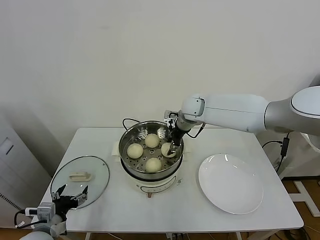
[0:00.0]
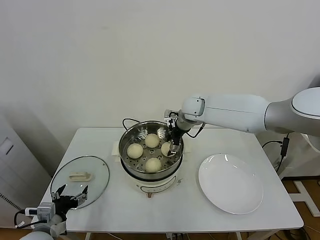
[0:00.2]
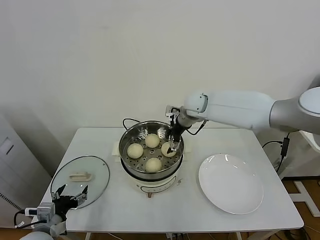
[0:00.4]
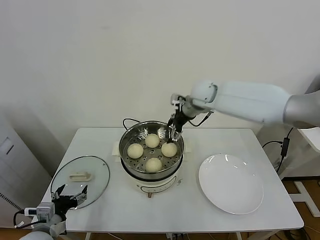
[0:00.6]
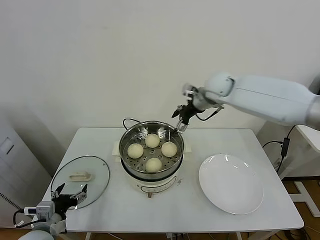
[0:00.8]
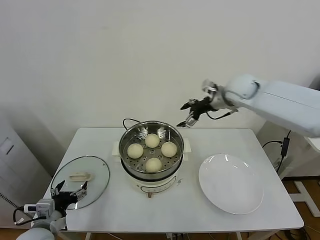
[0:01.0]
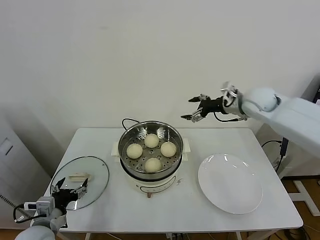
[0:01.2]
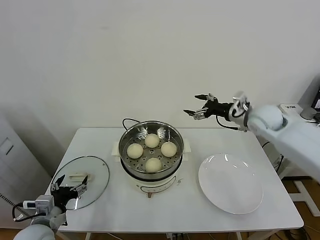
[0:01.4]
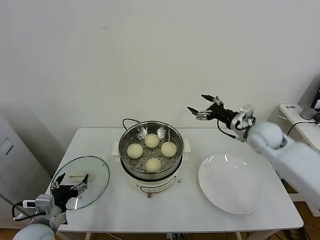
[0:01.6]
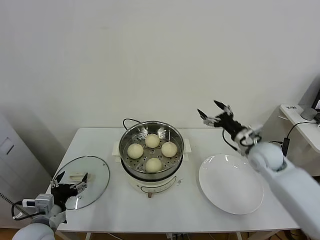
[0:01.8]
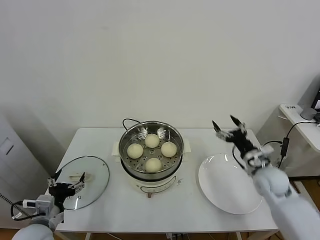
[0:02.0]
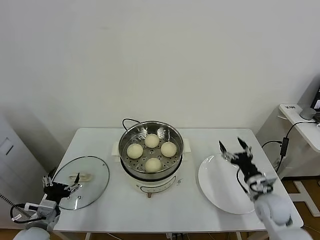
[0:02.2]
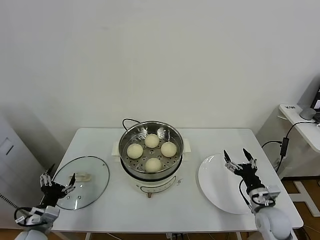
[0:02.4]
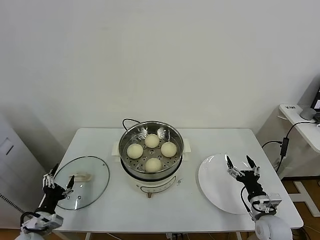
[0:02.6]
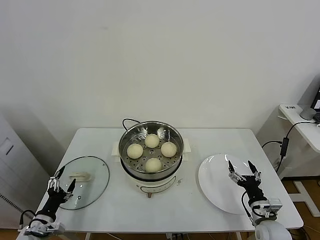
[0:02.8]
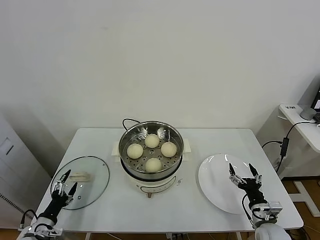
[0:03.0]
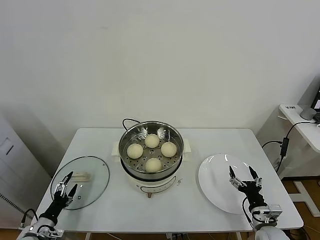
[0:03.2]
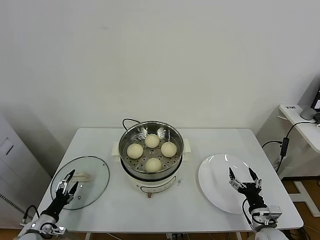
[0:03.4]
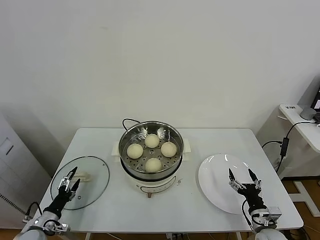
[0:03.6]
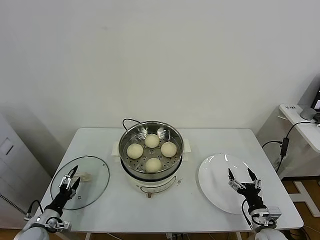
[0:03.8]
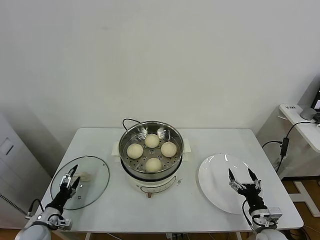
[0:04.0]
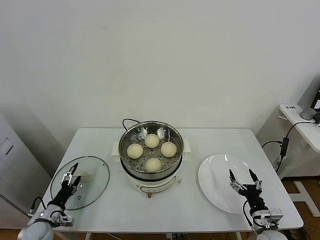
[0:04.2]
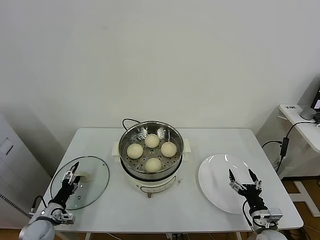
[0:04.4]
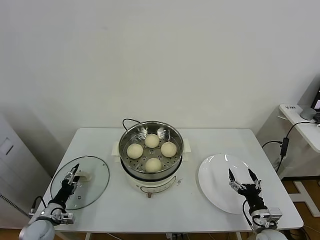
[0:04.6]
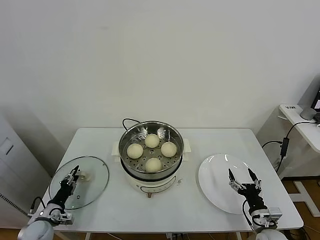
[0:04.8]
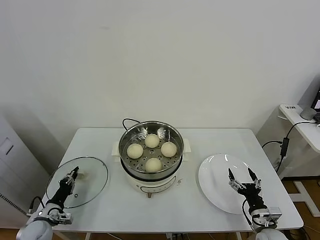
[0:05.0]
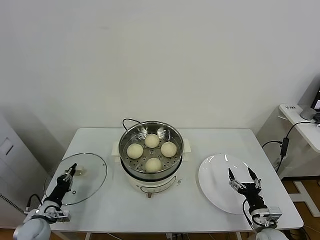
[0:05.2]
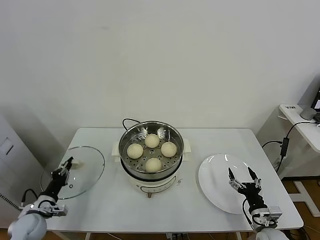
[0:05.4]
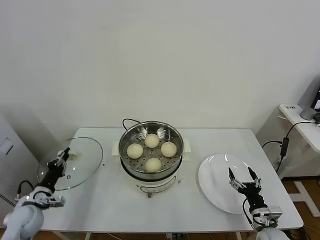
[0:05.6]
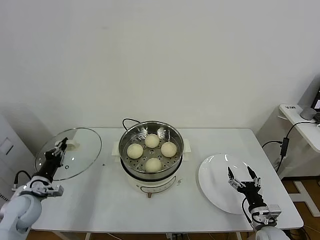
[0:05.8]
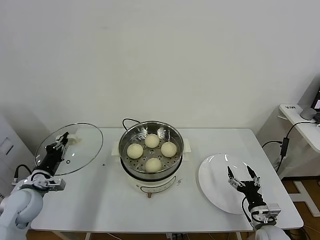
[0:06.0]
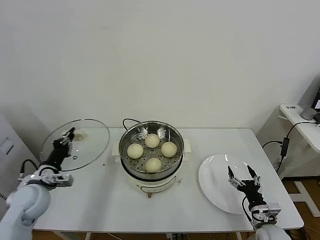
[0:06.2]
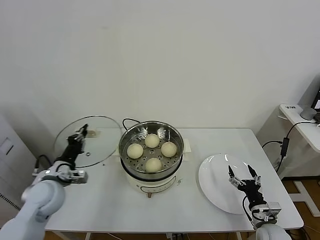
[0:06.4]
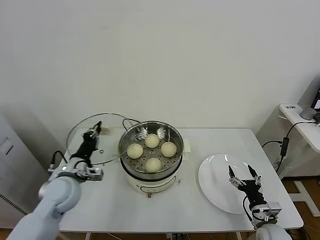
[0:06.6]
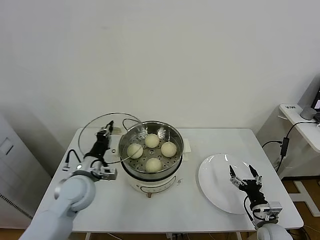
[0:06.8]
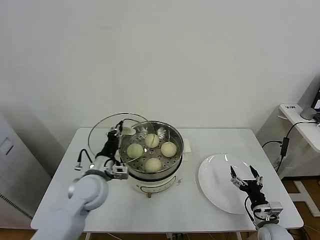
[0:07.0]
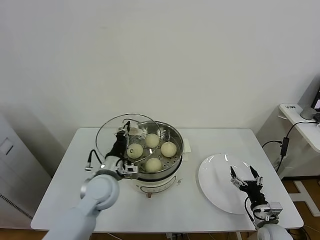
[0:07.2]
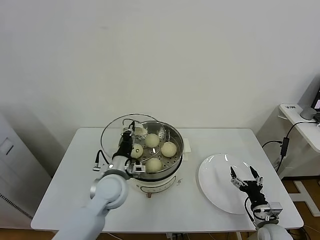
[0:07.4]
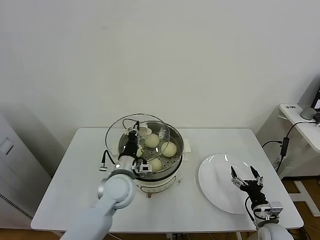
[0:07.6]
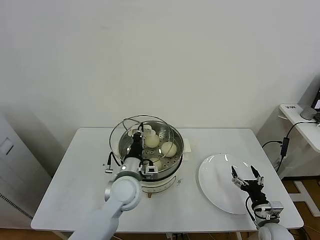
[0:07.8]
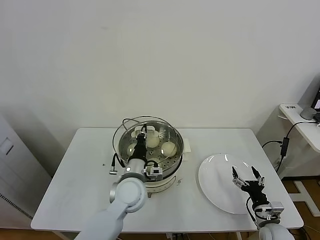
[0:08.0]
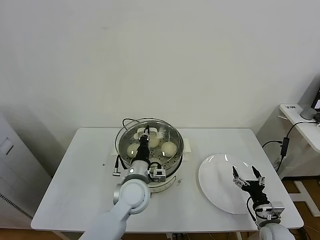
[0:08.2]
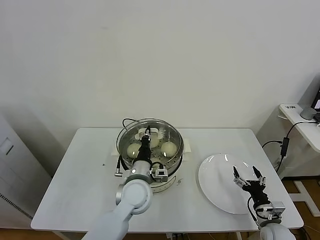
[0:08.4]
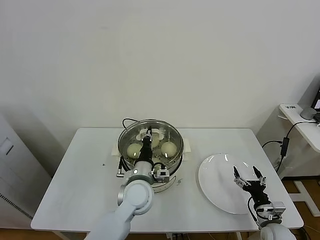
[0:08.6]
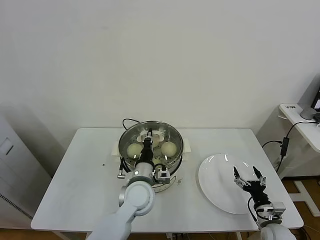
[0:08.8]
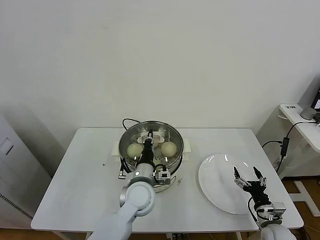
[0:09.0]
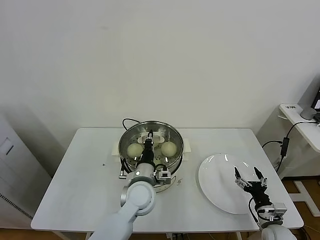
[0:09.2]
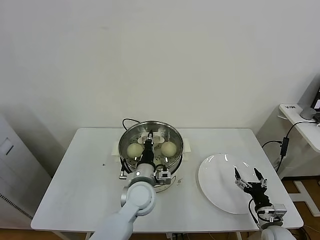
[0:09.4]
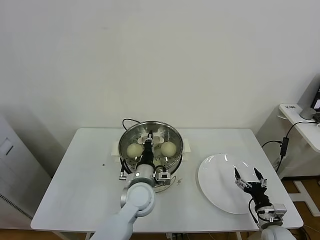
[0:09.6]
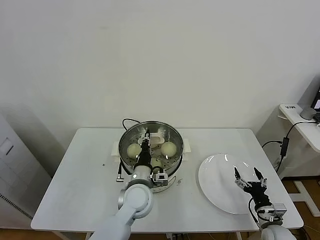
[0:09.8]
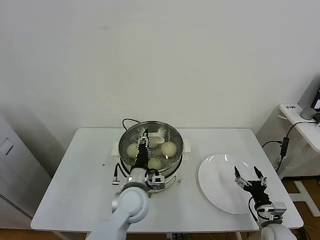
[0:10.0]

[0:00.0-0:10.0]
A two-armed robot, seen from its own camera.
Task of the whole recording: take steamed baozi put them in steamer.
Step, 0:00.6 to 0:05.2: Grasp the pot lid with left gripper.
0:00.0 to 0:01.4: The right gripper is displaced to the right and backward by about 20 cm, and opens.
0:01.4 to 0:02.8: The left gripper goes some 15 cm downward and to the left. Meanwhile the right gripper moves downward and backward, some 40 cm.
0:02.8 to 0:04.2: The left gripper is displaced forward by some 5 cm.
0:04.2 to 0:05.8: The left gripper travels upward by about 10 cm, and closes its fingers.
0:05.8 to 0:07.2: The left gripper is displaced to the right by about 25 cm.
0:07.2 to 0:08.6: The left gripper heads to the right, covering approximately 10 cm.
0:08.6 to 0:10.0: The left gripper opens up.

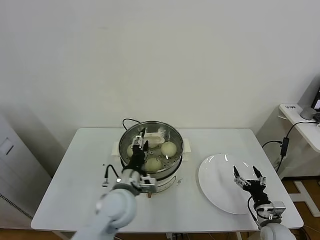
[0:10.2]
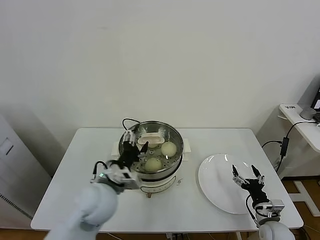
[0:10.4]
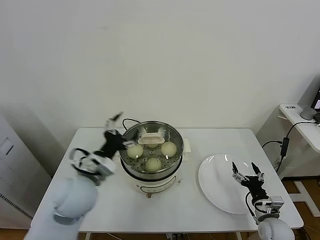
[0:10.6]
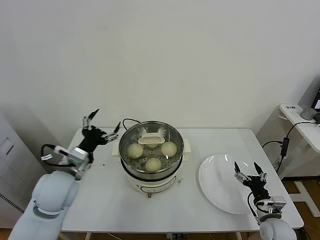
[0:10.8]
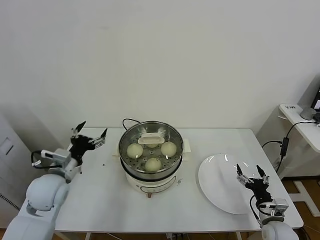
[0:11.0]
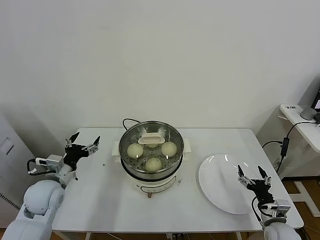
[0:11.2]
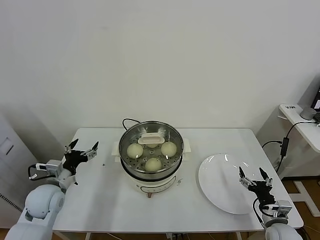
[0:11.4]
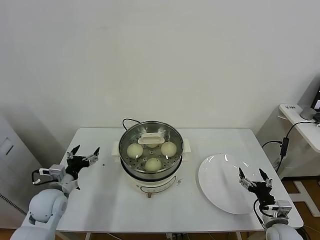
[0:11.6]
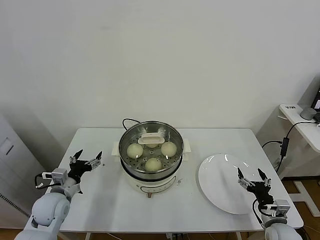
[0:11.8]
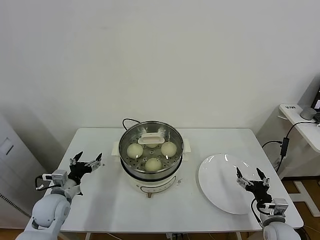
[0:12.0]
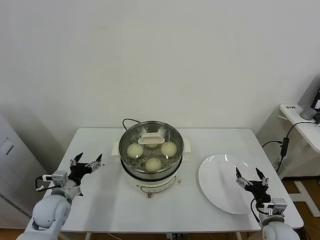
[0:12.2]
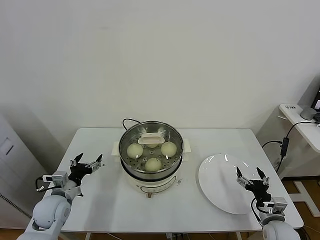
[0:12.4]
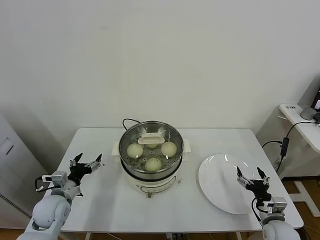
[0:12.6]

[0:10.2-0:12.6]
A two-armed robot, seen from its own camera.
Task of the whole recording: take steamed baozi put them in steamer.
0:10.2 to 0:11.4: The left gripper heads to the left, covering about 25 cm.
0:11.4 to 0:12.6: The left gripper moves some 5 cm.

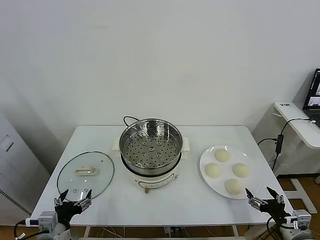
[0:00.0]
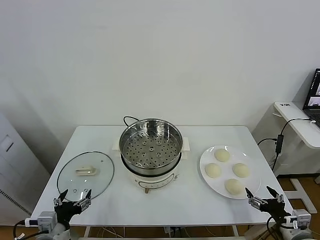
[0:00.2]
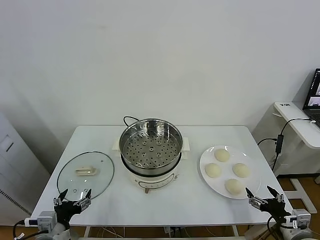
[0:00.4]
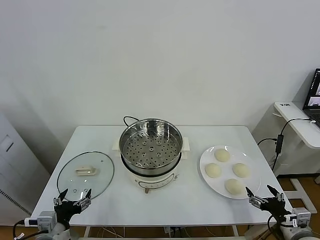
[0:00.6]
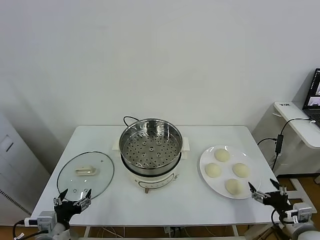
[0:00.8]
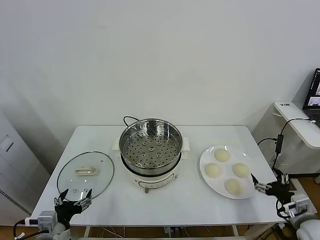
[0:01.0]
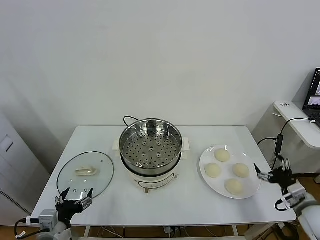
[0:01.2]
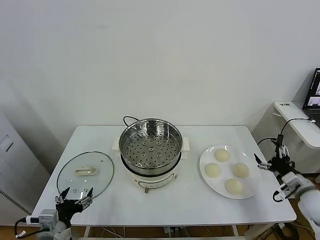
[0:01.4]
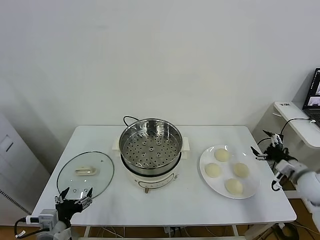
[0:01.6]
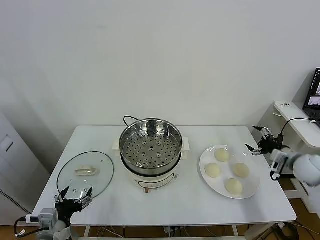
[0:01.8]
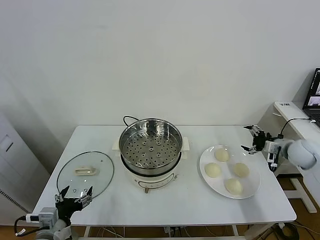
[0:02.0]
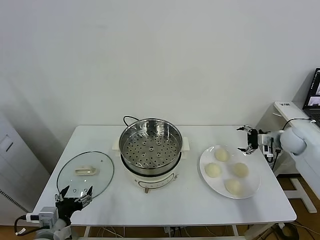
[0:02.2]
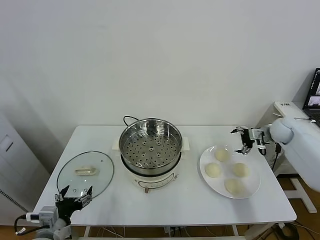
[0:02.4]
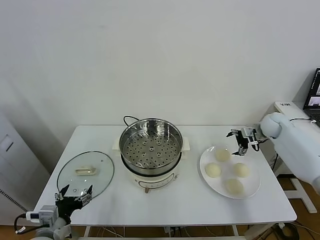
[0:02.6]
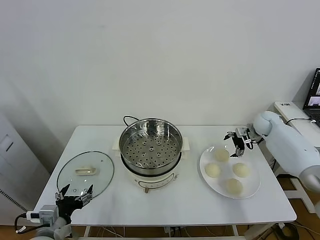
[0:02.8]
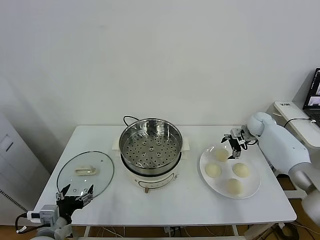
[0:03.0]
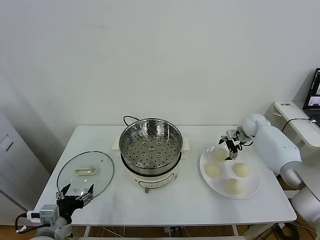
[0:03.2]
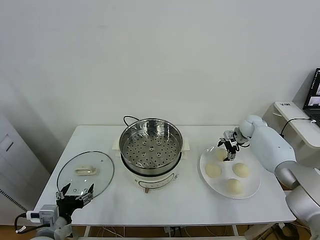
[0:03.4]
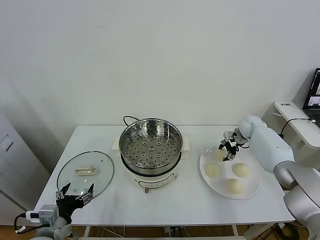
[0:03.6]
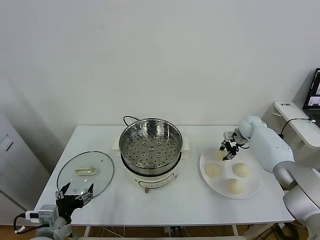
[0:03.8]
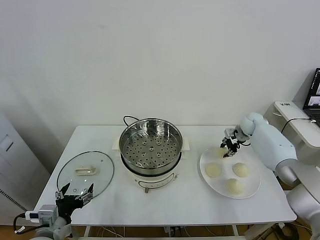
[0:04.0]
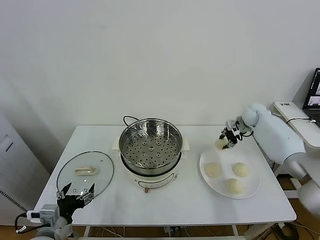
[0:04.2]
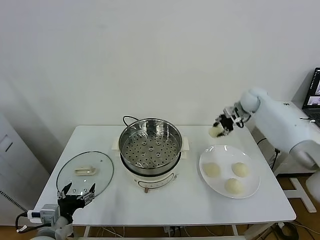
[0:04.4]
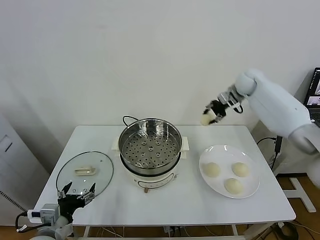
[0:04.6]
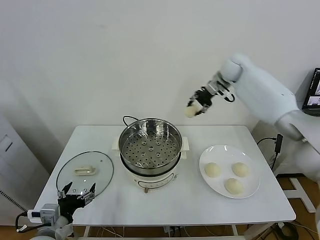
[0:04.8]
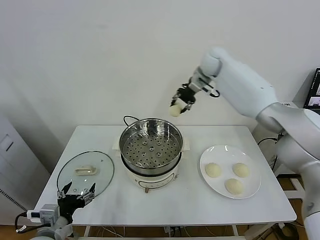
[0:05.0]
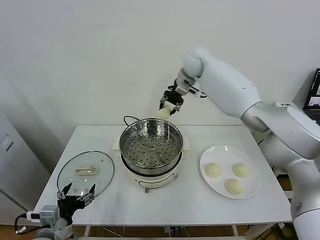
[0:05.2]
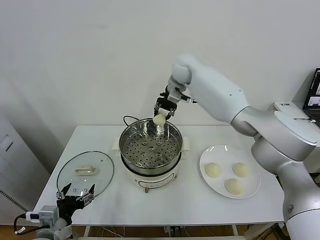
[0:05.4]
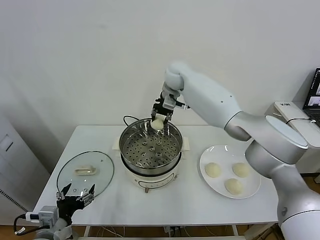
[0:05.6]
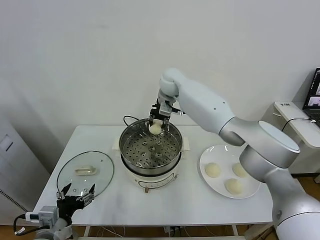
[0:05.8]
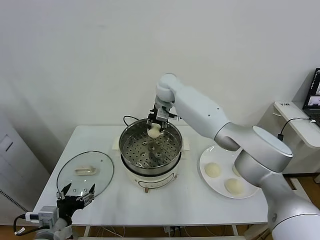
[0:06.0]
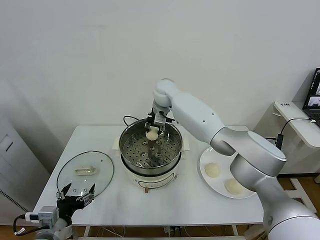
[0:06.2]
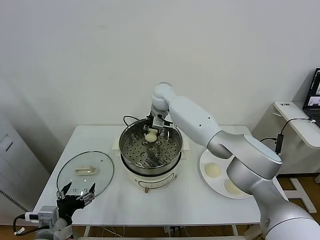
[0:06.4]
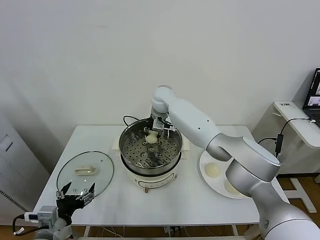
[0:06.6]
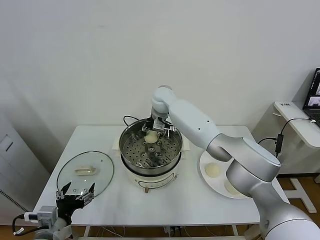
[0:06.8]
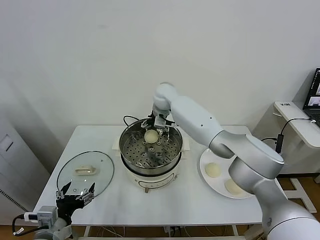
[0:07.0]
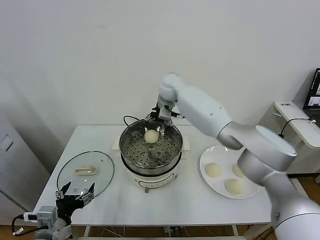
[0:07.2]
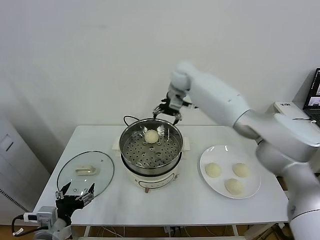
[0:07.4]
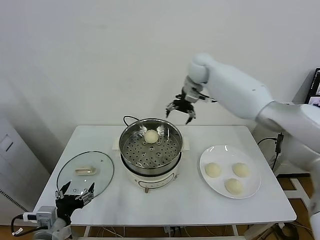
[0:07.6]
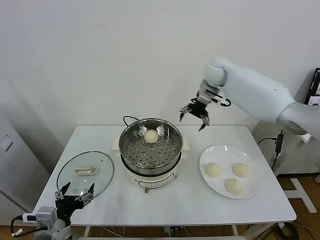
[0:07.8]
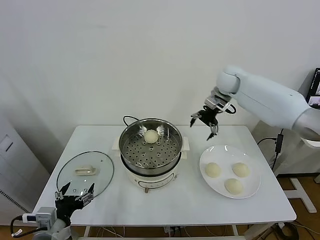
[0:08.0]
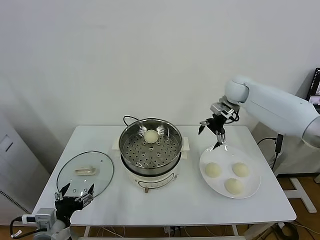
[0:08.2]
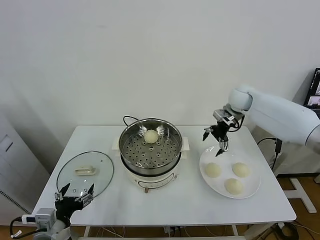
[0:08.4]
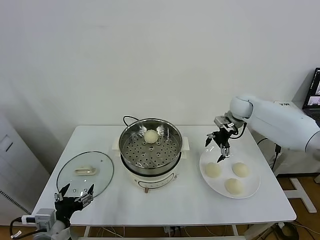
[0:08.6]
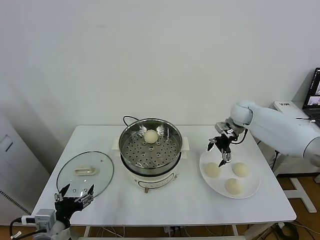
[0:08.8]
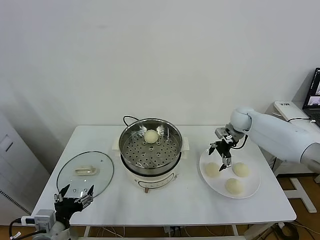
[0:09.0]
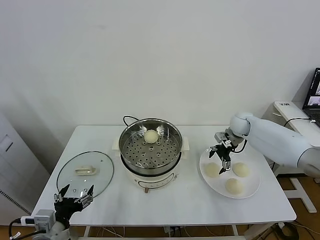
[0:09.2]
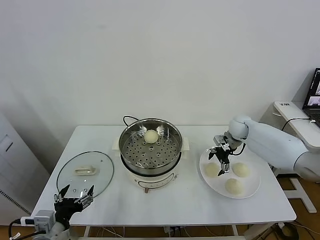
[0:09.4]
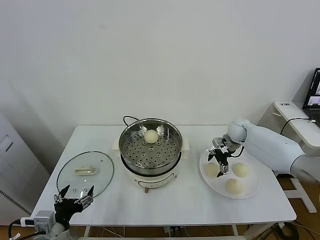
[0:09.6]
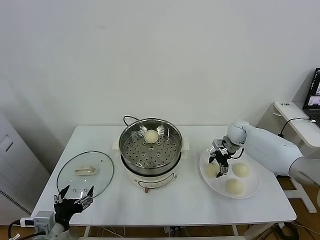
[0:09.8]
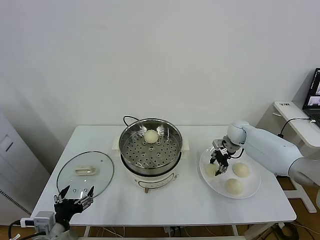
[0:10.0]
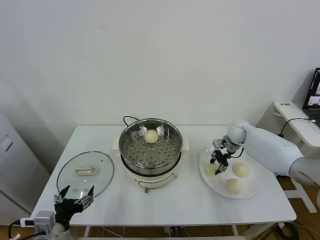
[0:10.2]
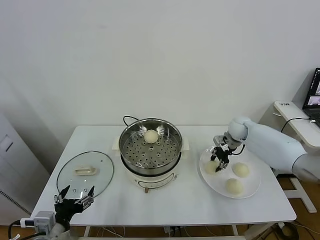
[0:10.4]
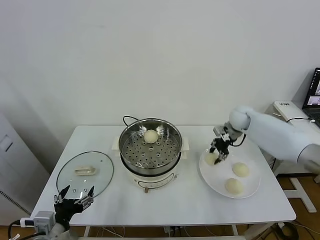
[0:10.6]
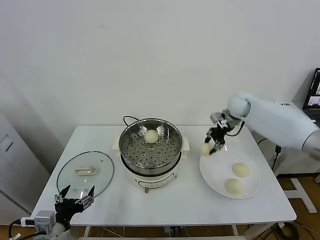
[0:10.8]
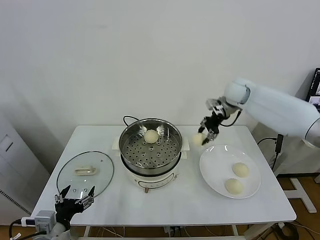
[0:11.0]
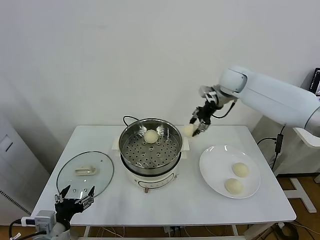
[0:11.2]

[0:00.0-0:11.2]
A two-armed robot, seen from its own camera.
Task of the whole recording: take steamed baozi put them in steamer.
Step, 0:00.0 to 0:03.4: Grasp the baozi in the plate with right gripper.
Step, 0:03.8 to 0:07.0: Place the baozi on the steamer with right gripper.
Step, 0:07.2 to 0:10.0: Grasp the baozi in the plate with right gripper.
0:01.6 to 0:03.2: The right gripper shifts some 25 cm forward.
0:03.2 to 0:04.8: The right gripper heads upward and to the left, covering roughly 30 cm, and closes up.
0:04.8 to 0:06.4: The right gripper travels to the left and downward by some 25 cm.
0:06.4 to 0:08.0: The right gripper goes about 25 cm to the right, and opens up.
0:08.0 to 0:09.6: The right gripper moves downward, roughly 20 cm.
0:09.6 to 0:11.2: The right gripper heads upward and to the left, covering approximately 25 cm, and closes its fingers.
